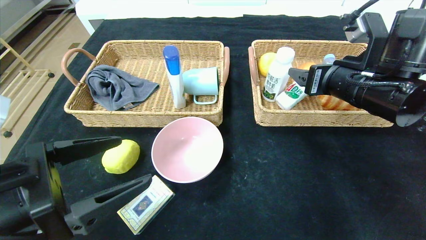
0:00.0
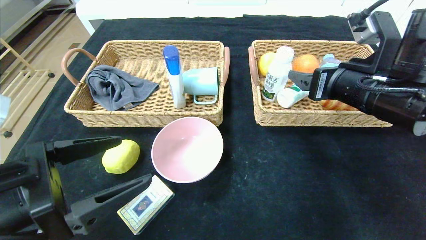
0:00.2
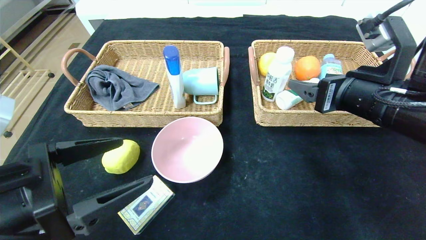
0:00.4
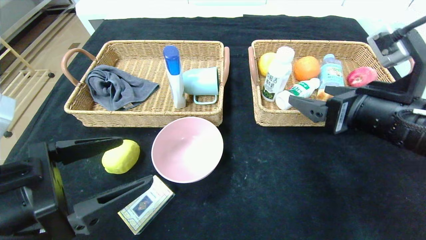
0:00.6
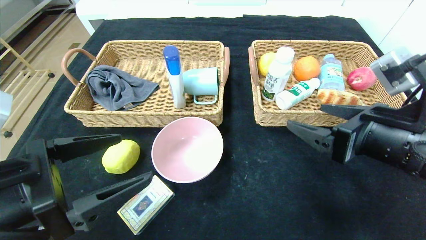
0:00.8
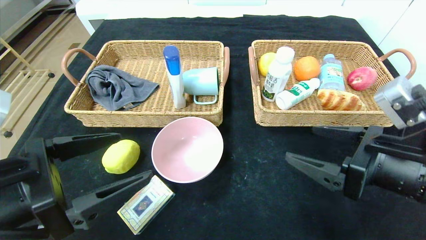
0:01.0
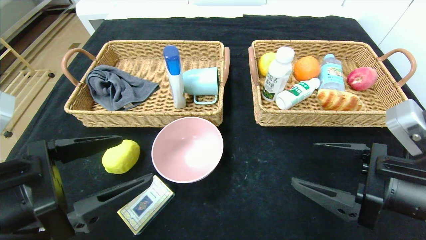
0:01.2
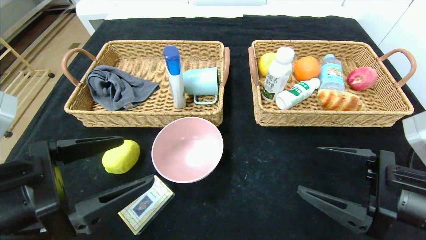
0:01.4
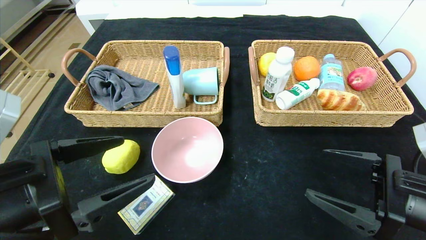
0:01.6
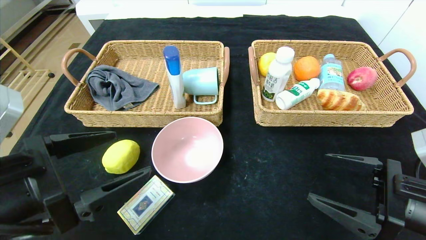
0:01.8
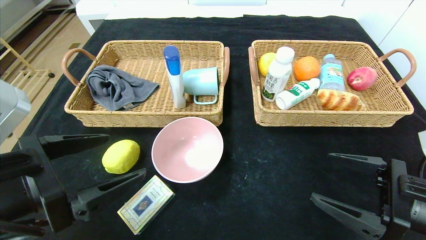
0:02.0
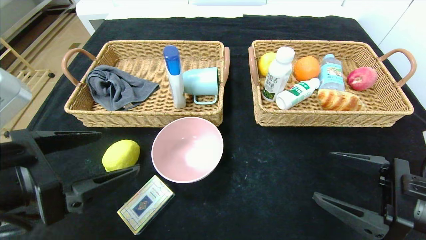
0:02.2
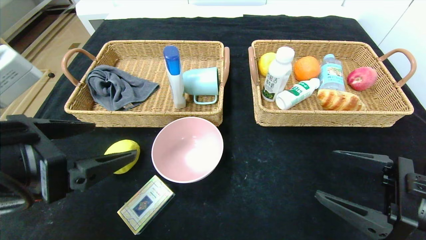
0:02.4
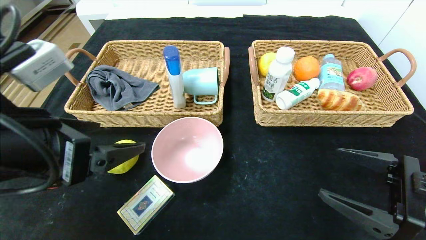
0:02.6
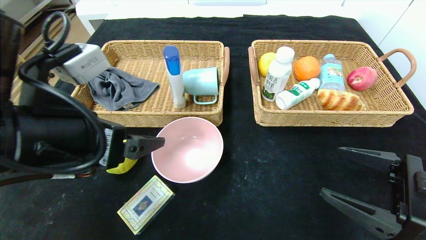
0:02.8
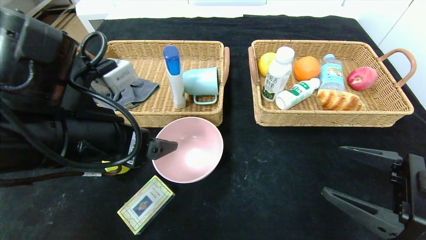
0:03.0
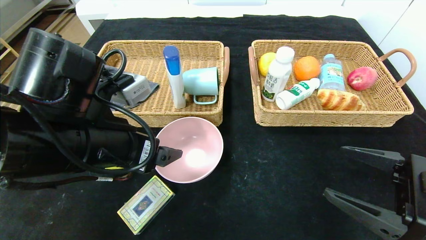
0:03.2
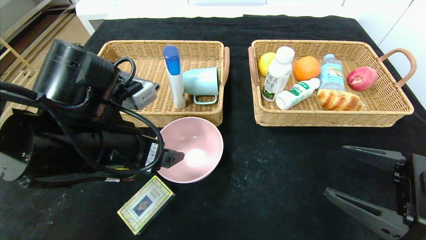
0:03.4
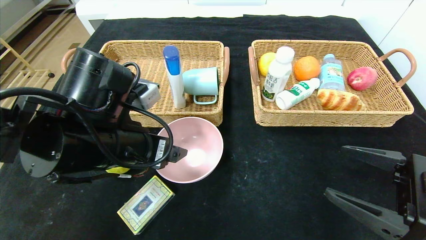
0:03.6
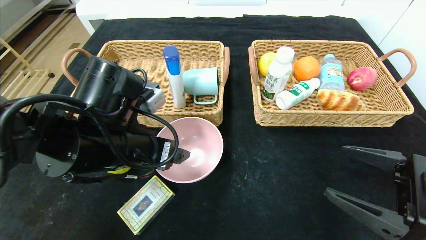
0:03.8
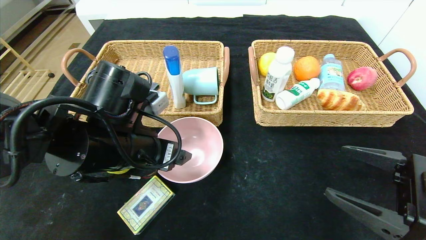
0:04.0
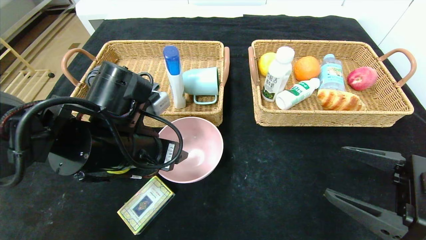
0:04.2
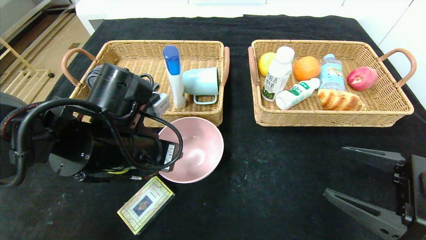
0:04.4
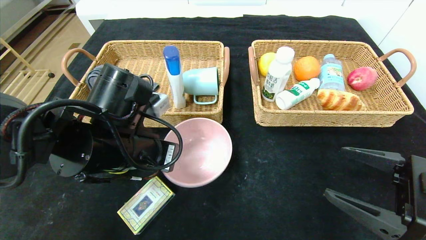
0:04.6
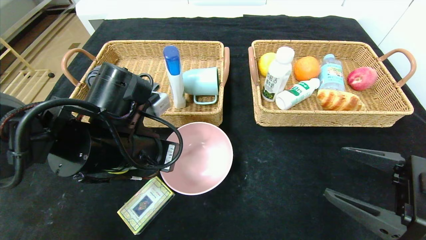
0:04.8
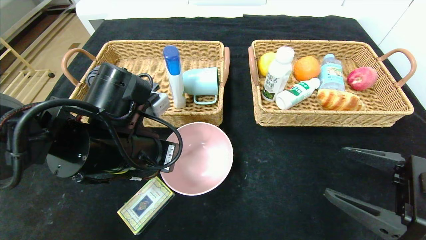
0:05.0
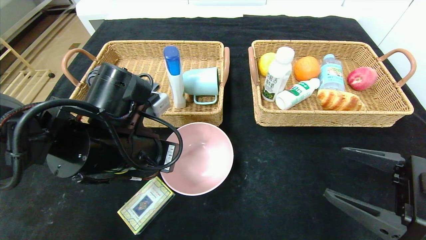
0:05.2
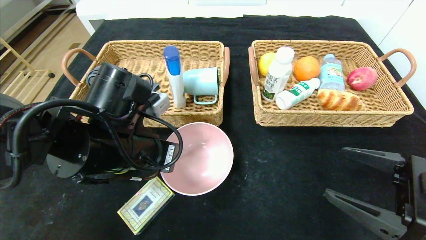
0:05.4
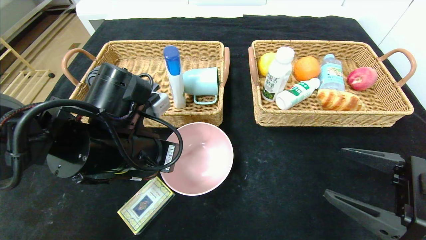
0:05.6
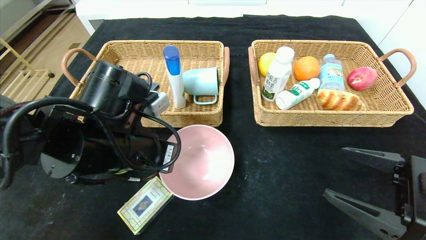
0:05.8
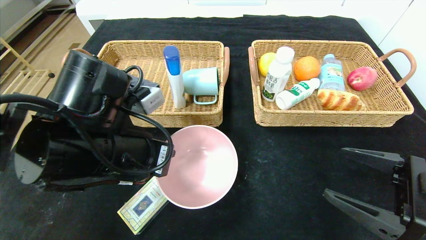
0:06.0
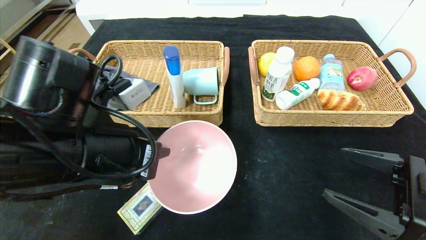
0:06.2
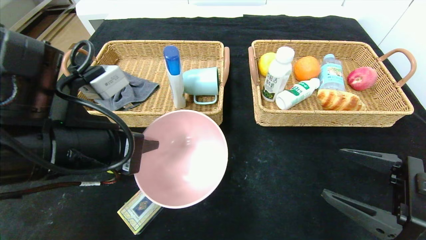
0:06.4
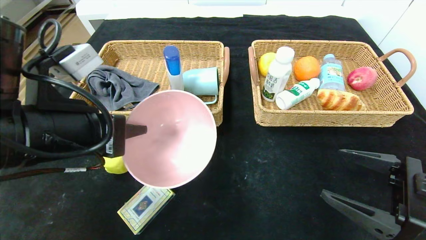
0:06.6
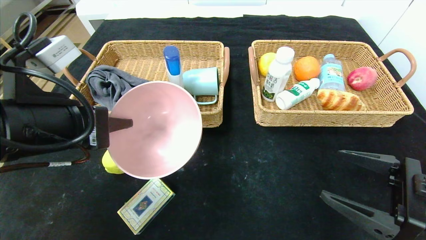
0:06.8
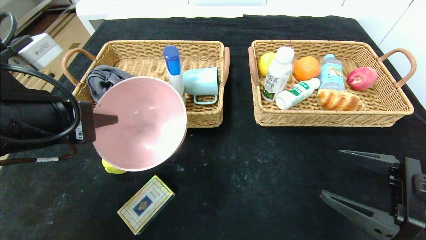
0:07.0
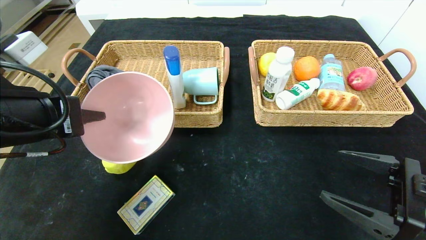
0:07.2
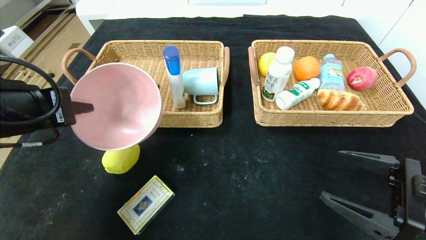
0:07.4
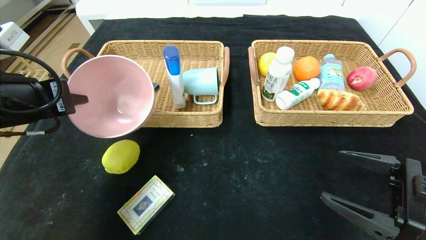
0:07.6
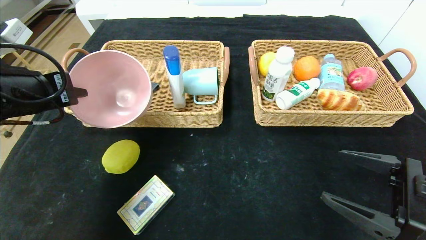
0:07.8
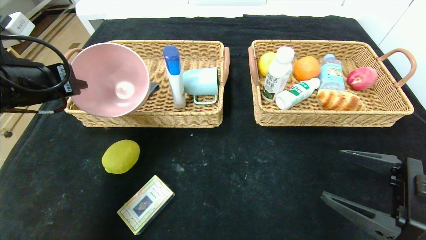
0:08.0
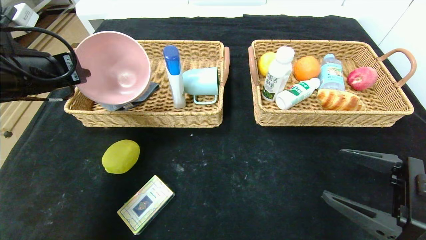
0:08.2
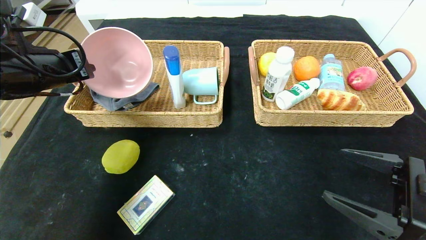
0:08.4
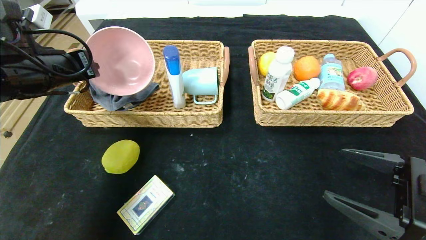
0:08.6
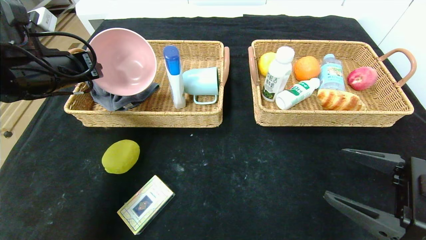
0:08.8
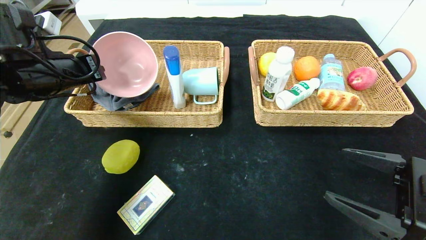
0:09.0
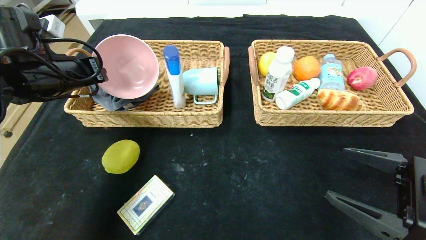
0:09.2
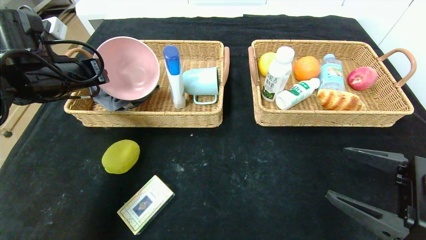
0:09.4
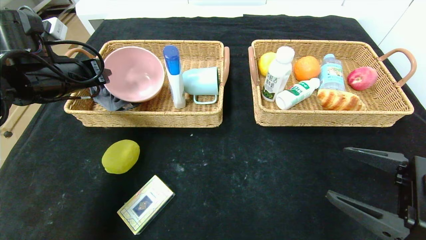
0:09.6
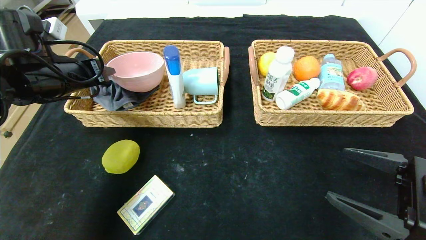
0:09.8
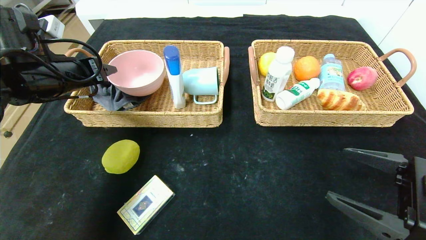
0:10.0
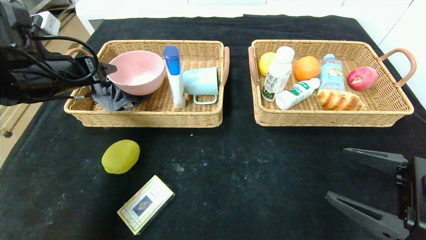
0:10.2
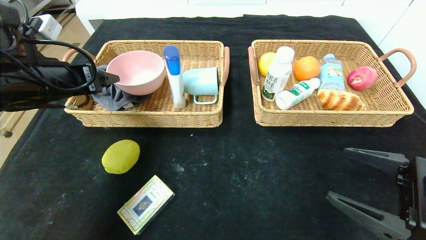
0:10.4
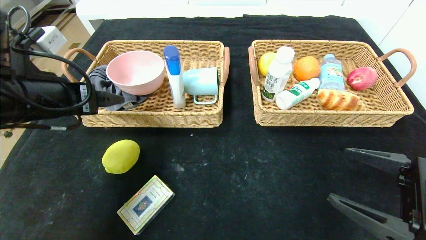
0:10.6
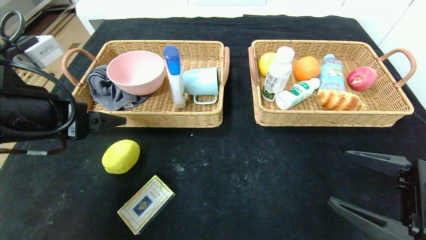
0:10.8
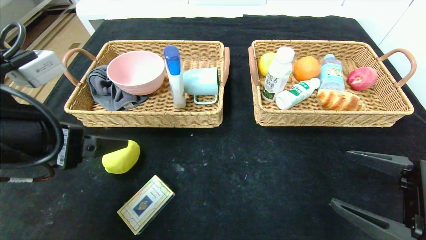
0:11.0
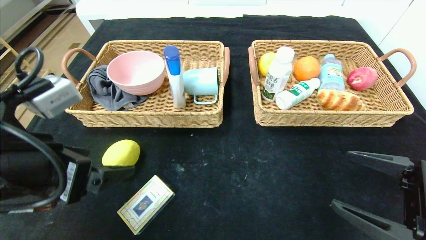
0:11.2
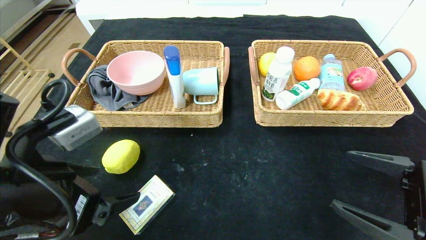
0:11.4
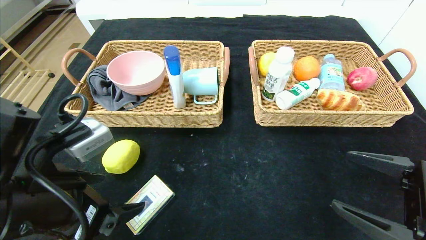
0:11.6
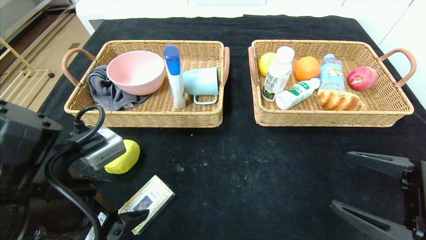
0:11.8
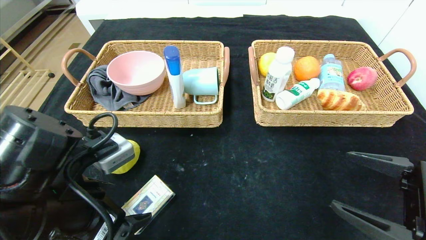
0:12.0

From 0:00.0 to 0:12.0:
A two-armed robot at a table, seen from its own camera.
Step, from 0:00.0 to 0:09.8: Grasp the pink bowl and put it in the left basket.
From 0:00.0 to 0:01.6: The right gripper is displaced backward and downward by some 15 cm.
From 0:01.6 to 0:03.0: The left gripper travels forward and to the right by about 10 cm.
From 0:03.0 to 0:04.4: The left gripper moves some 5 cm, and closes its fingers.
From 0:04.4 to 0:06.0: The left gripper closes up.
From 0:06.0 to 0:07.6: The left gripper heads to the left and upward, covering some 15 cm.
From 0:07.6 to 0:09.0: The left gripper shifts some 10 cm forward.
From 0:09.0 to 0:10.4: The left gripper ends up roughly 5 cm from where it was, and opens its fingers.
From 0:10.4 to 0:12.0: The left gripper moves backward, downward and to the right, approximately 20 cm.

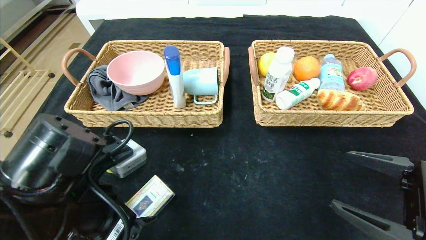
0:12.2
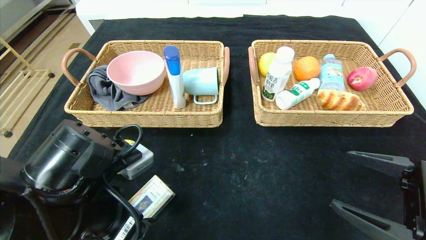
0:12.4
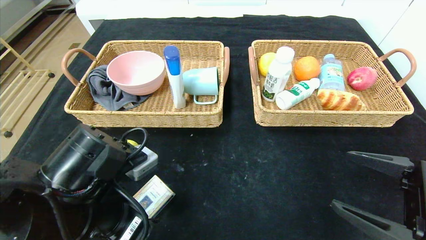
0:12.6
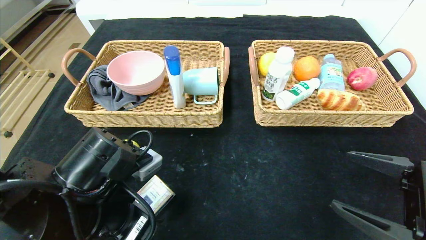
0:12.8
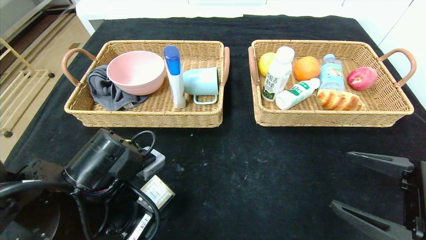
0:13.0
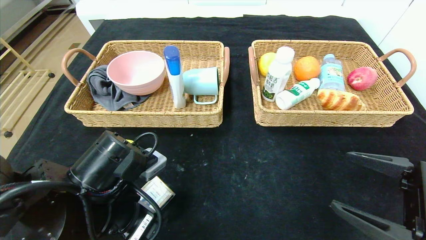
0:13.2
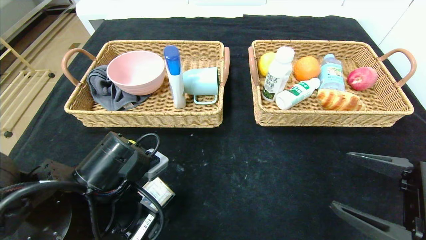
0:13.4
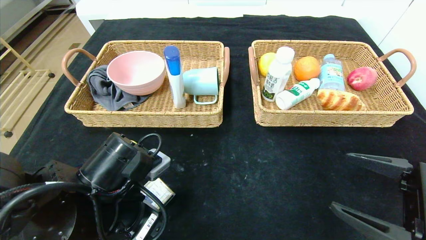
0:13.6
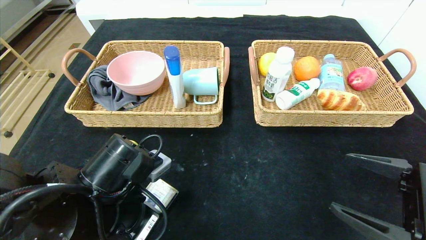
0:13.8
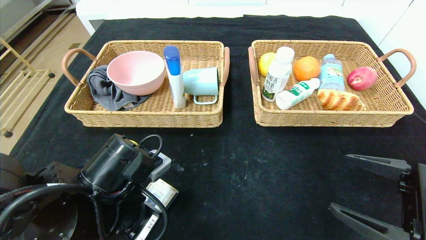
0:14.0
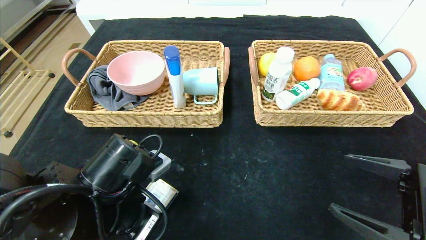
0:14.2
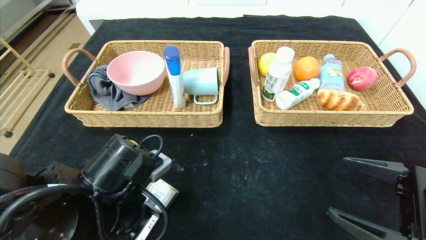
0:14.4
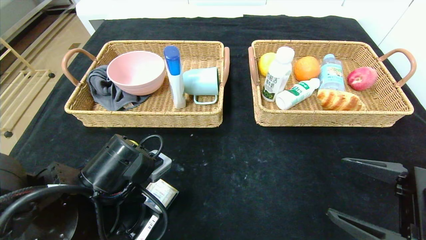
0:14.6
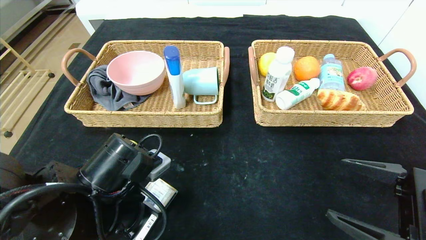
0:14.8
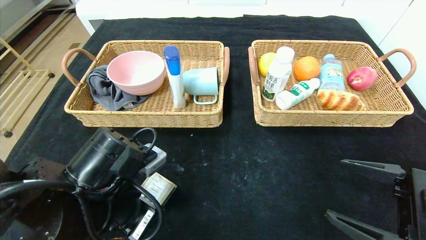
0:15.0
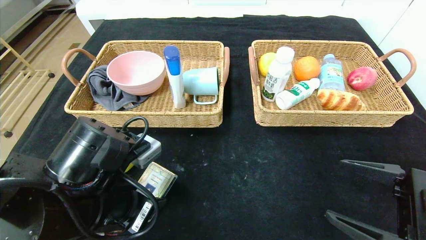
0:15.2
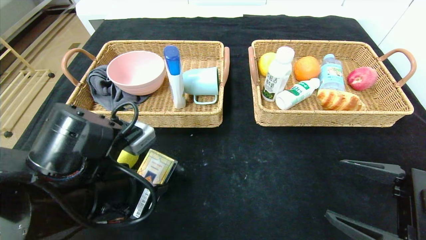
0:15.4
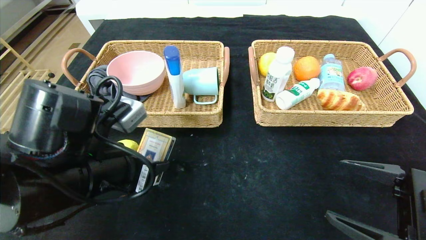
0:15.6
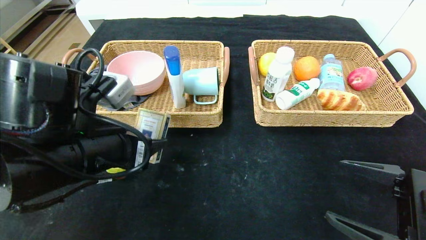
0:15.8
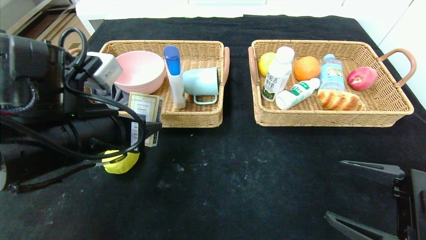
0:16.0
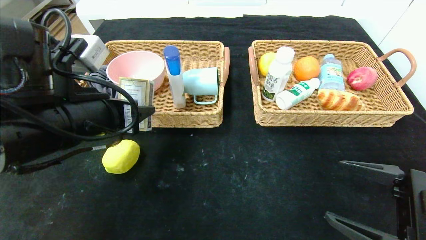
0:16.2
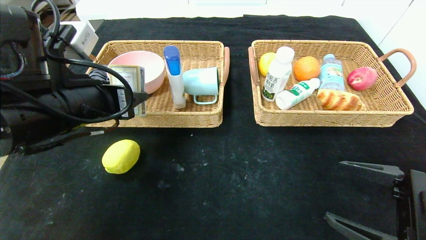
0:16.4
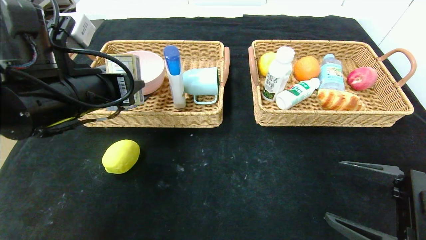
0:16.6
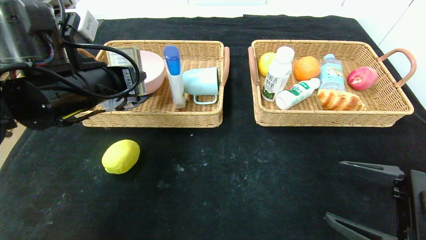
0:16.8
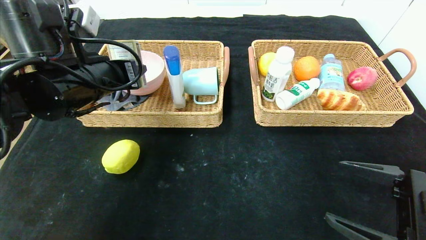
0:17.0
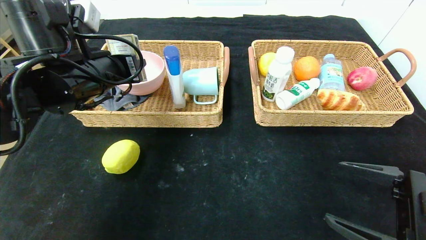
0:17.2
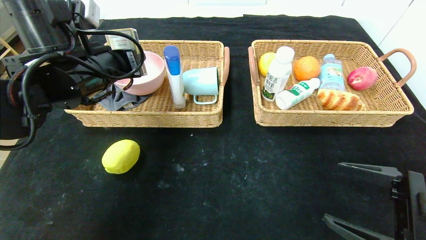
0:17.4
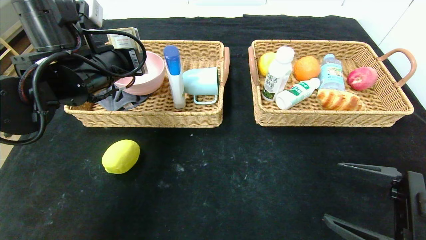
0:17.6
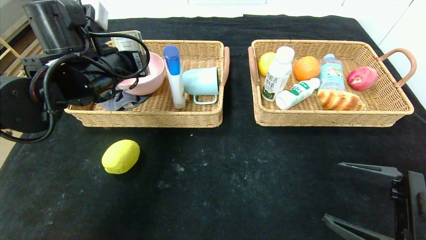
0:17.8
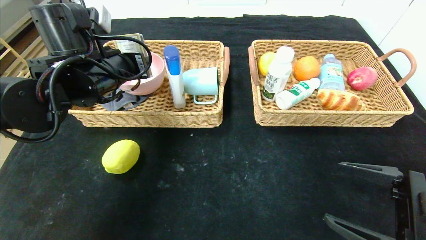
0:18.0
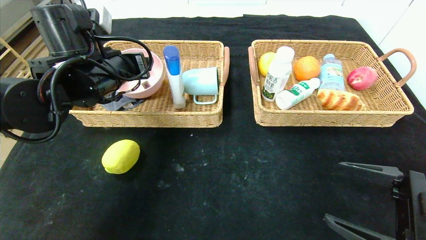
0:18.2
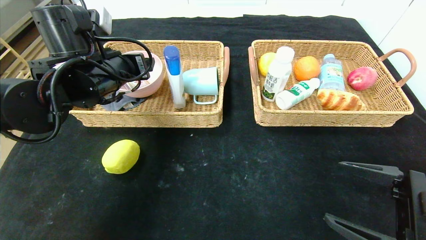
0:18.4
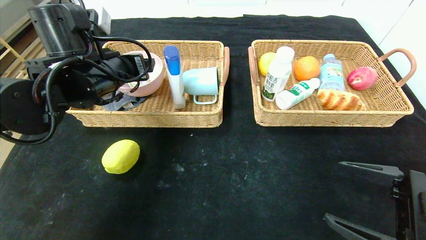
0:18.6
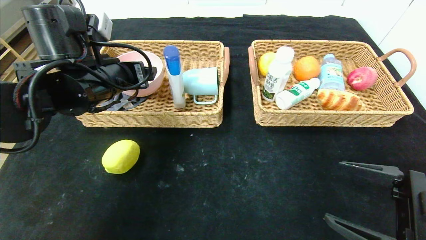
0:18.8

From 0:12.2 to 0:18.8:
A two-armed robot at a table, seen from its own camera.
Step, from 0:12.2 to 0:18.2: Grasp the playing cards and put it in the left basket.
From 0:12.2 to 0:13.8: The left gripper closes.
From 0:13.8 to 0:15.4: The grippers make only small movements.
From 0:15.4 to 0:17.2: The left gripper heads forward and upward, covering roughly 15 cm.
From 0:17.2 to 0:18.8: The left gripper opens up.
